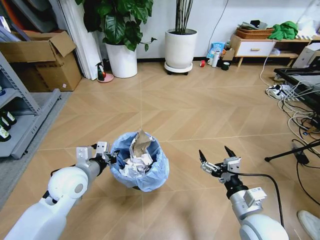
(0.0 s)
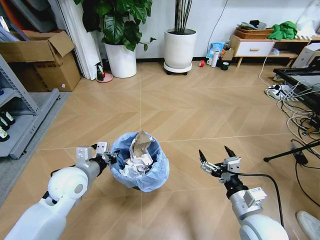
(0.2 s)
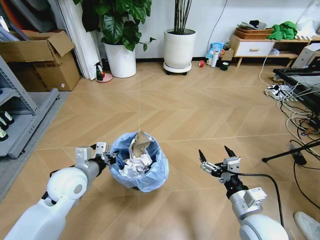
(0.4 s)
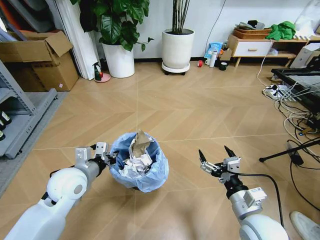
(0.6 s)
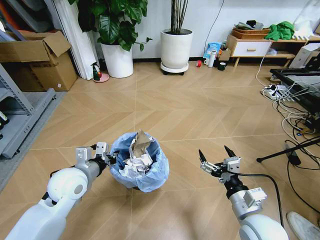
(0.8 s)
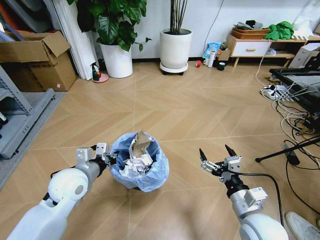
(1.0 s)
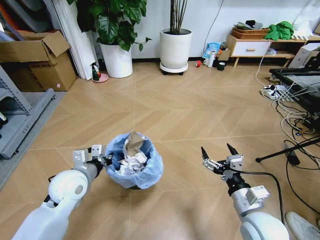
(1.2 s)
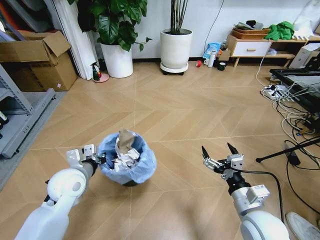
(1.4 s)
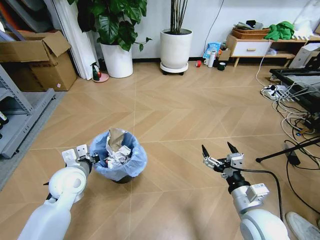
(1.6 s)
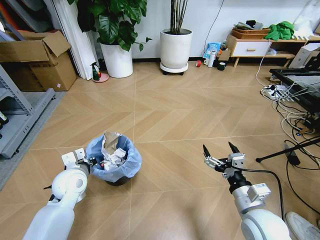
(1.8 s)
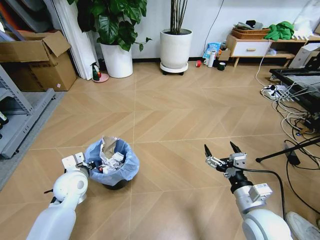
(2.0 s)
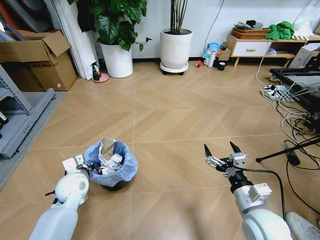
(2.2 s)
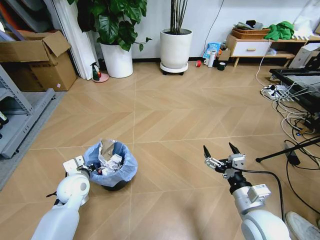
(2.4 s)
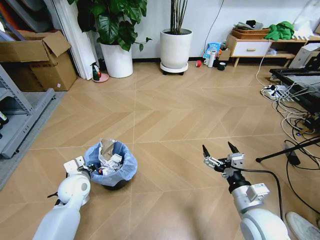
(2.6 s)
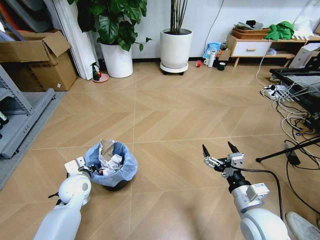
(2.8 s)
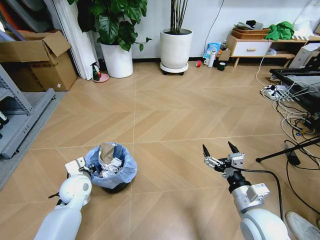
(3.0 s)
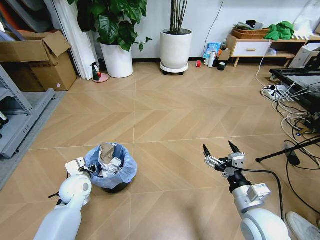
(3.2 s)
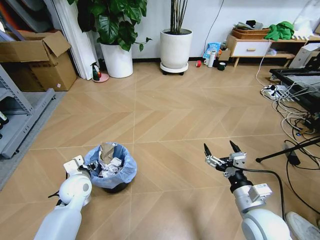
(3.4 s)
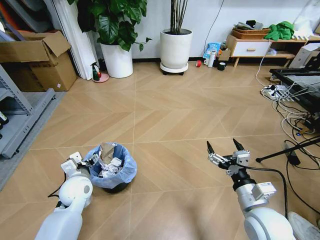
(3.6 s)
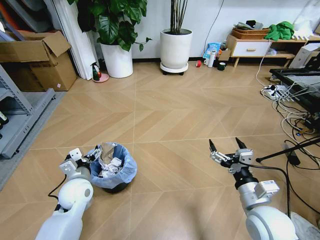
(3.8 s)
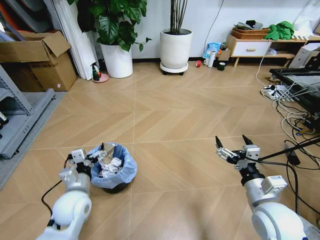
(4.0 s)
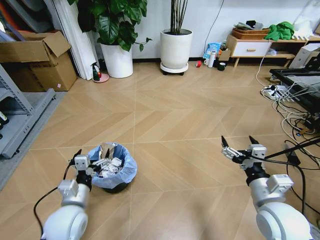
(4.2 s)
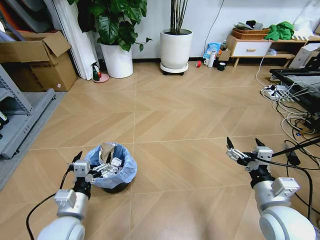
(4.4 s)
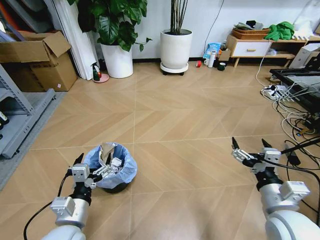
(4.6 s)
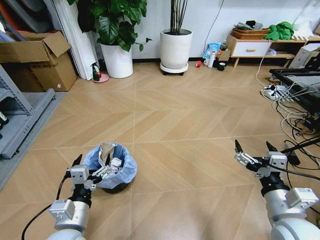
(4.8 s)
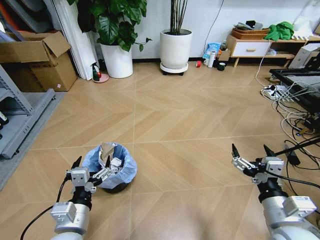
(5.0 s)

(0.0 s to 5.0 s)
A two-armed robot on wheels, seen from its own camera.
Task of the whole recording: Pick up the trash bin and place the garbage on the floor into it.
1.6 s - 3.4 s: The left gripper moves downward, about 10 cm, and opens.
3.4 s - 5.0 s: The left gripper shifts roughly 20 cm backward, and opens. Meanwhile the right gripper heads backward, covering roughly 5 cm.
